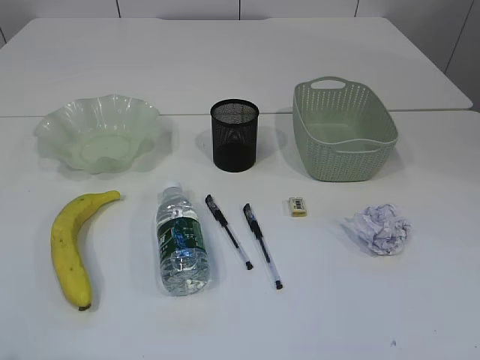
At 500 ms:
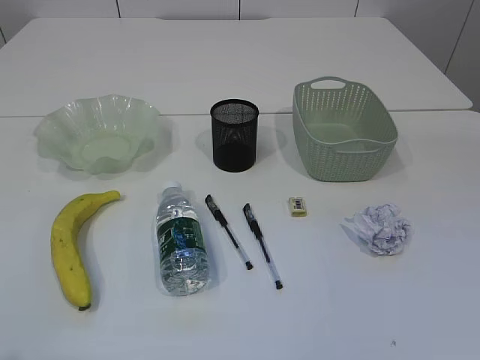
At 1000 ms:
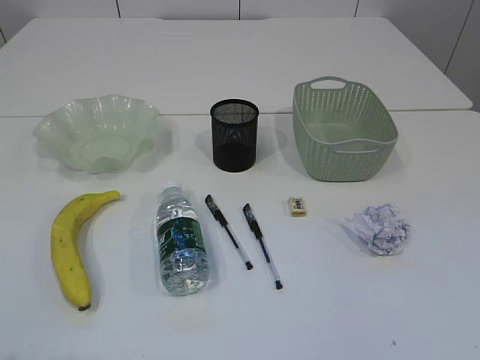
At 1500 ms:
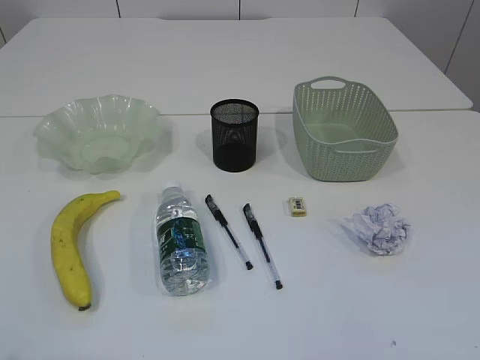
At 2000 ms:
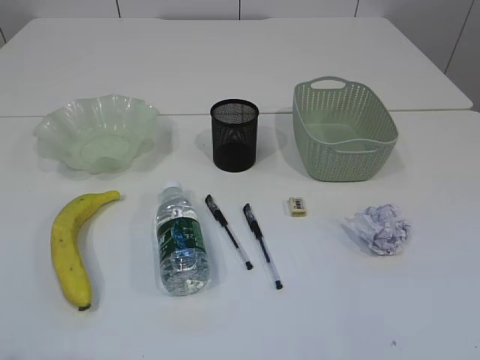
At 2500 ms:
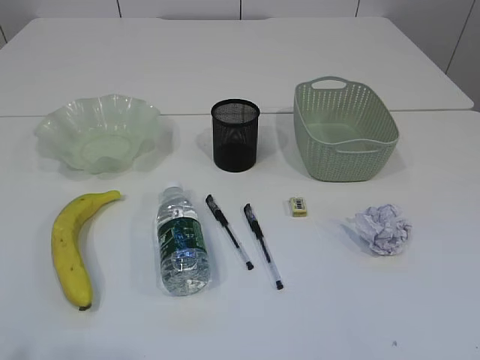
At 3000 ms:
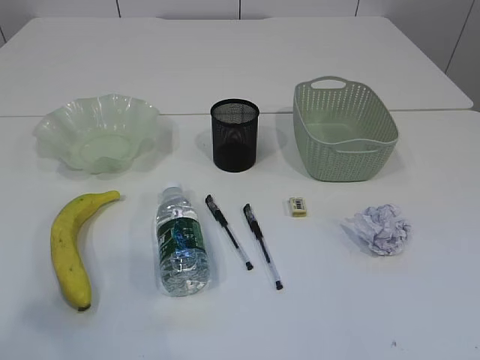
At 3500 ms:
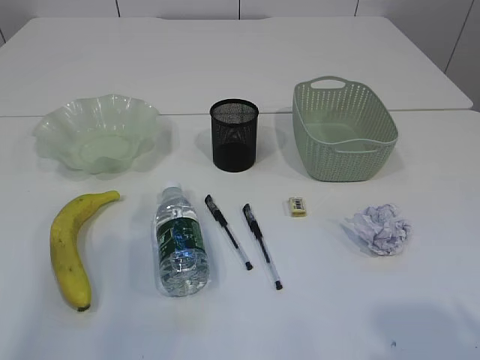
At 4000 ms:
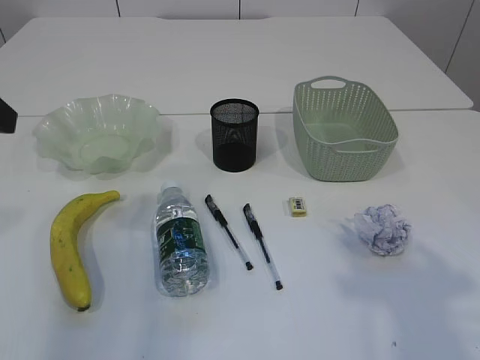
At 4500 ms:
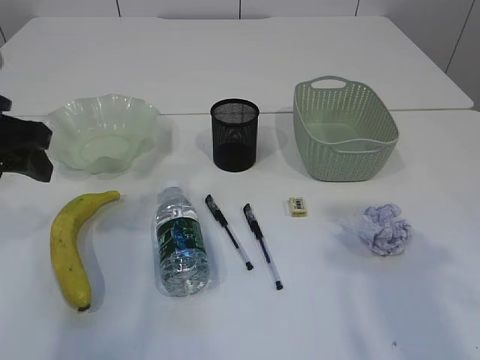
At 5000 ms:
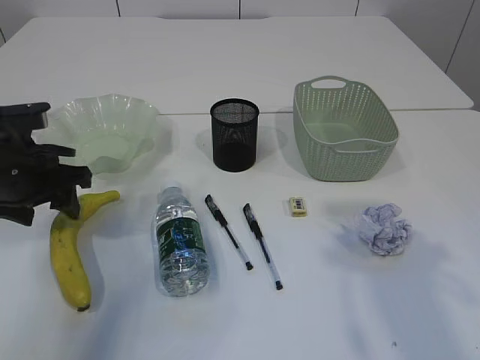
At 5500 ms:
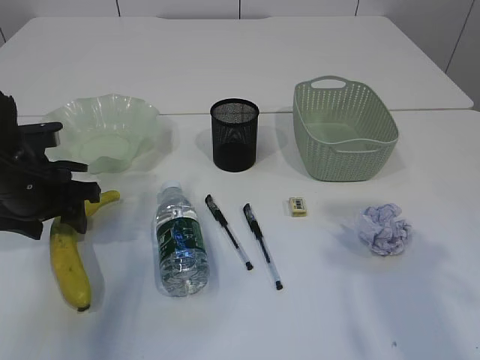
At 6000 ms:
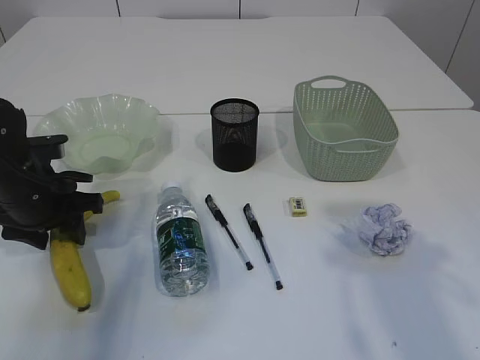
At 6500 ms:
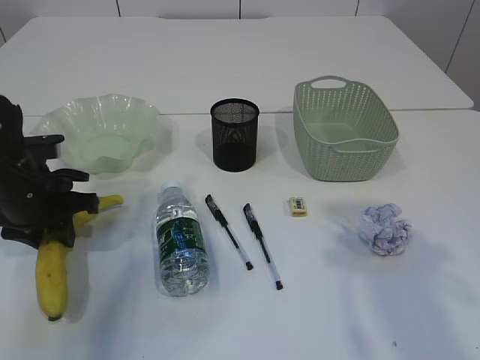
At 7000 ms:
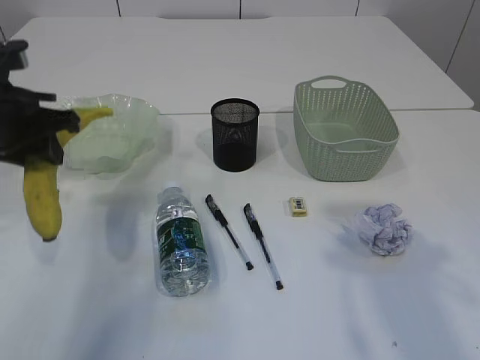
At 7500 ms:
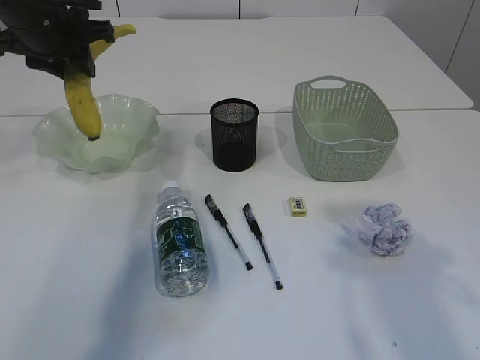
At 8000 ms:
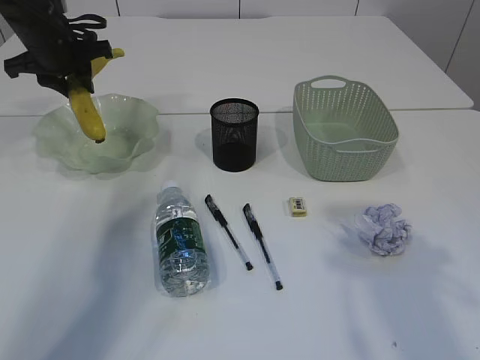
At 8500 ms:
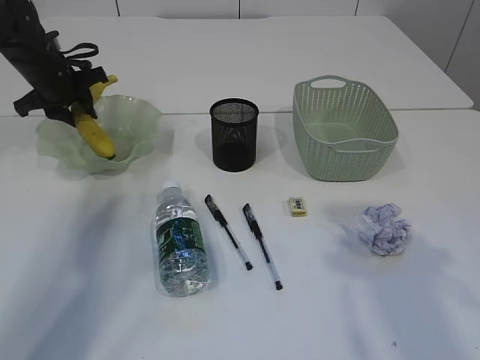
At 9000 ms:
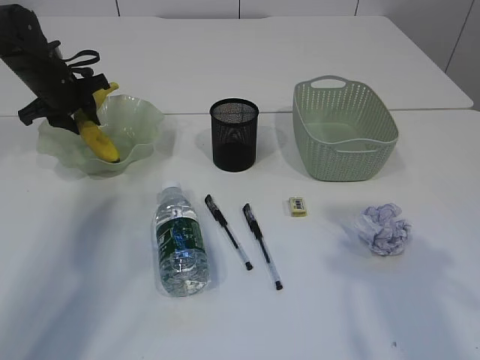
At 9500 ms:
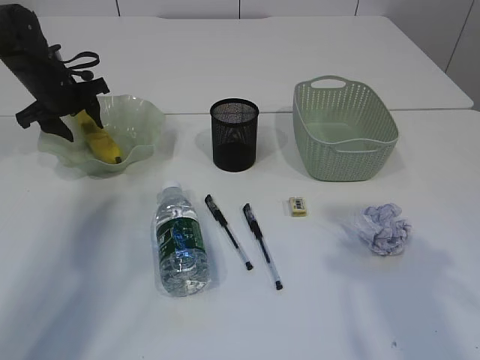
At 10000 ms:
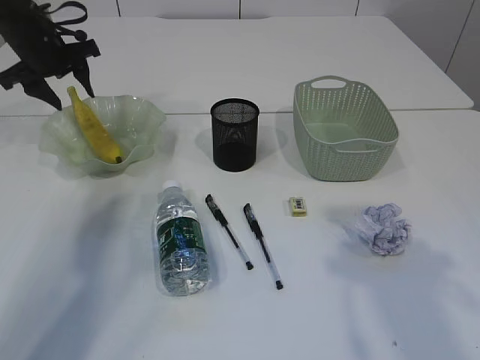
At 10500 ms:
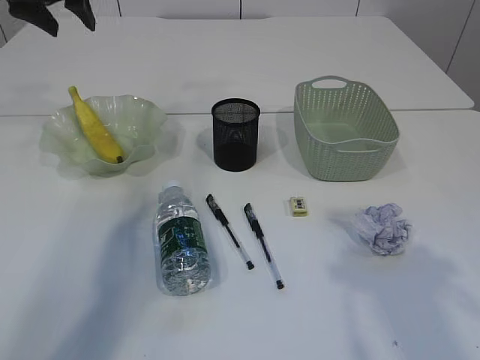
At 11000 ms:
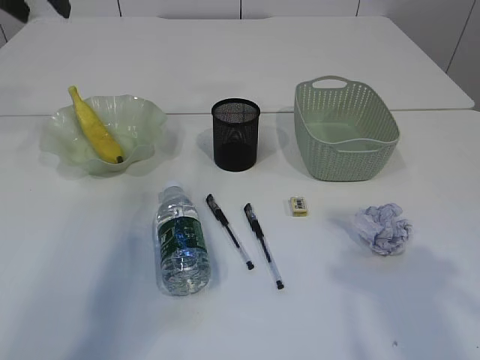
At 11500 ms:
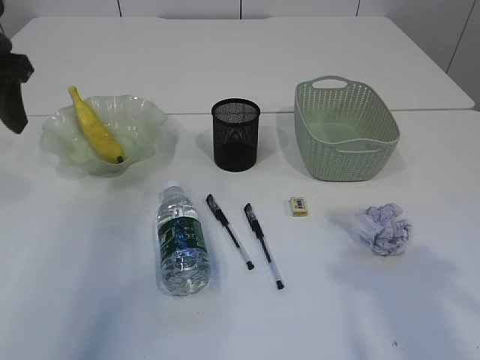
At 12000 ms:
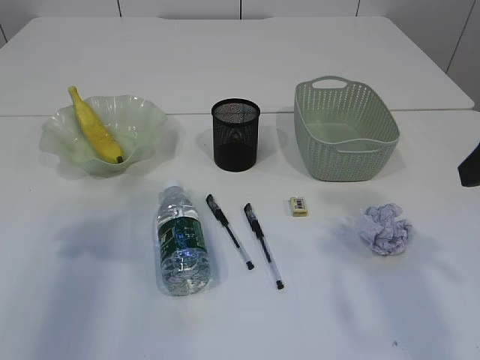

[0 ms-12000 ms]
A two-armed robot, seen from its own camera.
Step, 7000 ms to 10000 ms: Place the banana in the plate.
2000 ms to 4000 ms: The right gripper travels forward and upward by some 15 cm; the left gripper heads forward, covering about 25 cm.
4000 ms to 6000 ms: The left gripper goes about 20 cm downward and forward.
6000 ms to 8000 ms: The left gripper heads forward and upward, covering approximately 20 cm, and closes its fingers.
8000 ms to 10000 ms: The left gripper moves roughly 10 cm downward and comes back, and opens its fingers.
10000 ms to 12000 ms: The left gripper travels backward by some 25 cm.

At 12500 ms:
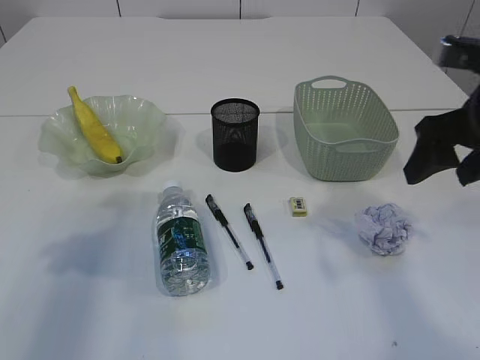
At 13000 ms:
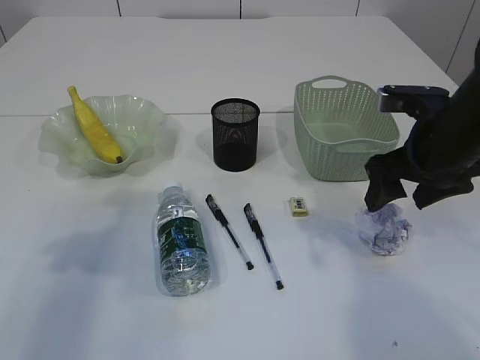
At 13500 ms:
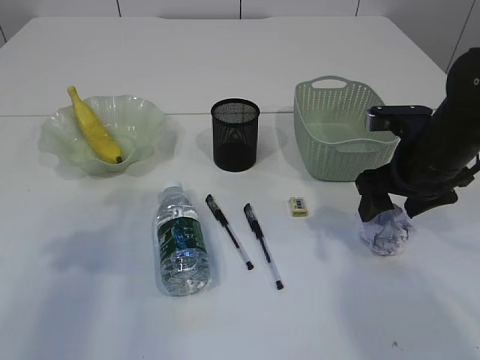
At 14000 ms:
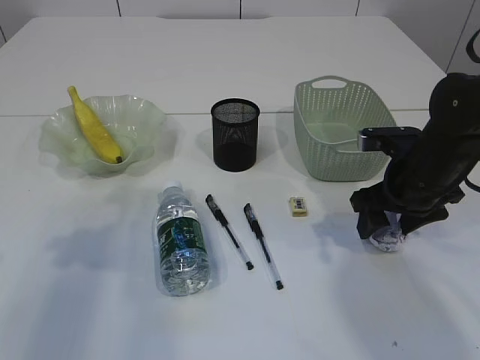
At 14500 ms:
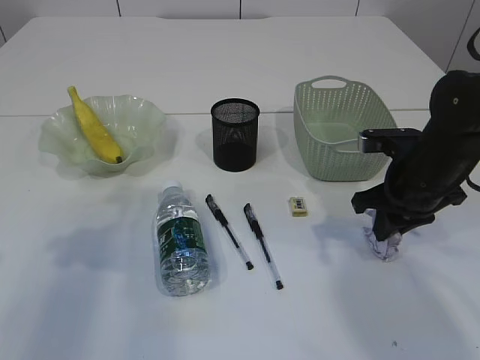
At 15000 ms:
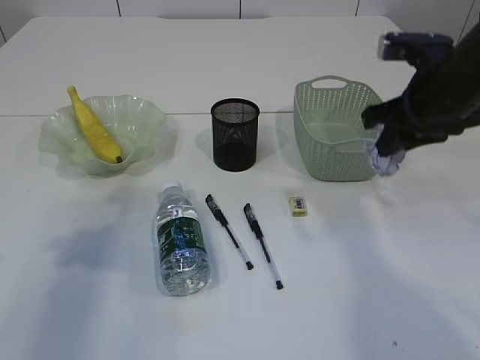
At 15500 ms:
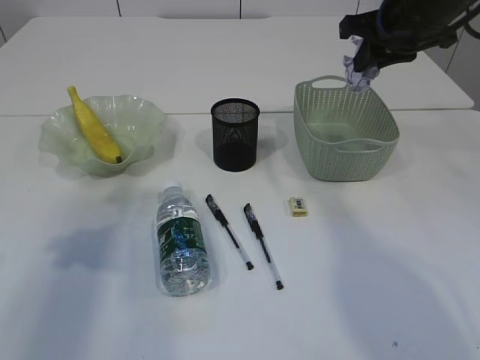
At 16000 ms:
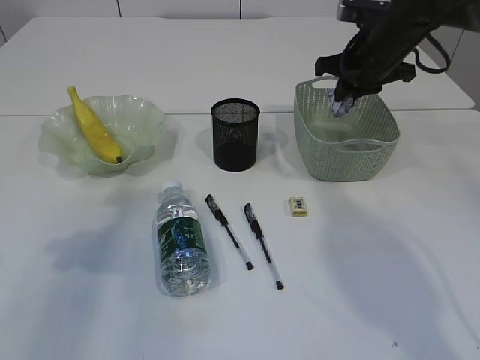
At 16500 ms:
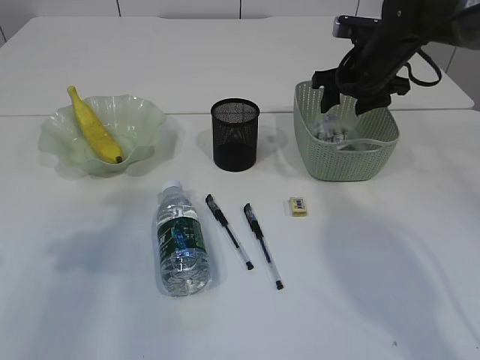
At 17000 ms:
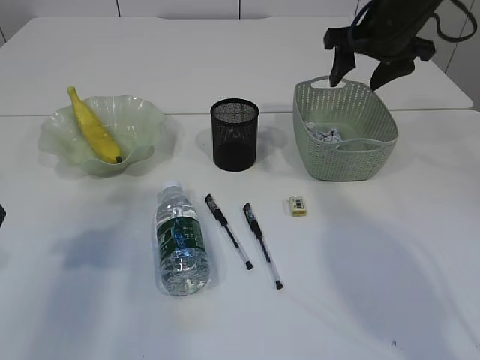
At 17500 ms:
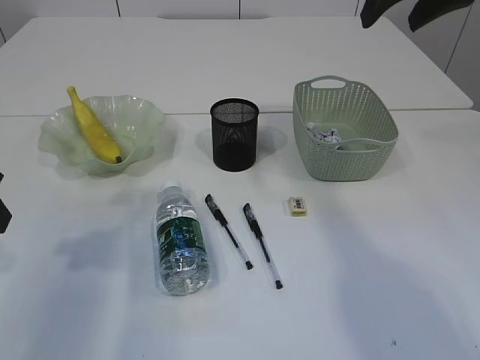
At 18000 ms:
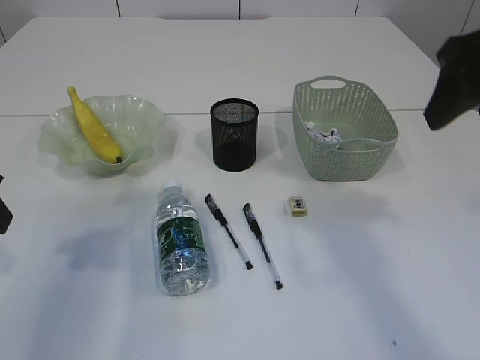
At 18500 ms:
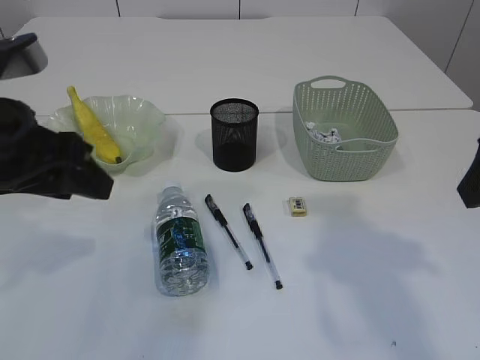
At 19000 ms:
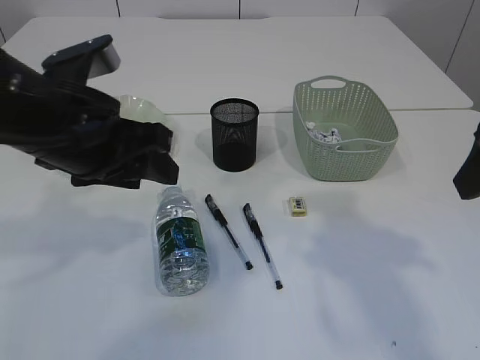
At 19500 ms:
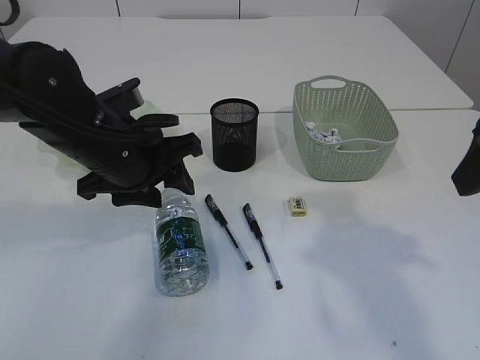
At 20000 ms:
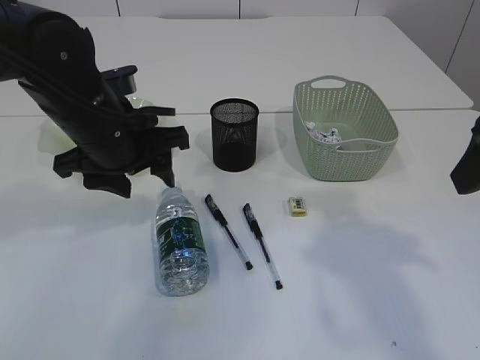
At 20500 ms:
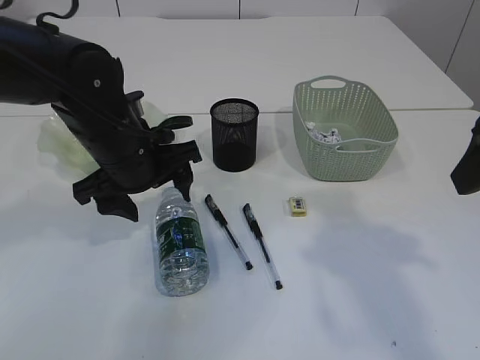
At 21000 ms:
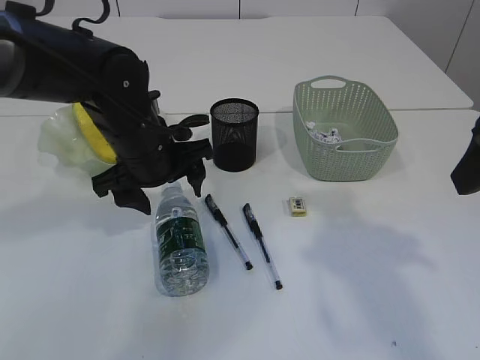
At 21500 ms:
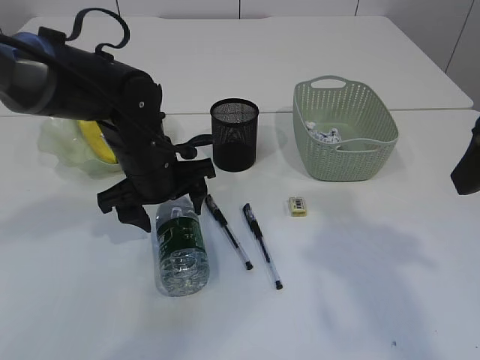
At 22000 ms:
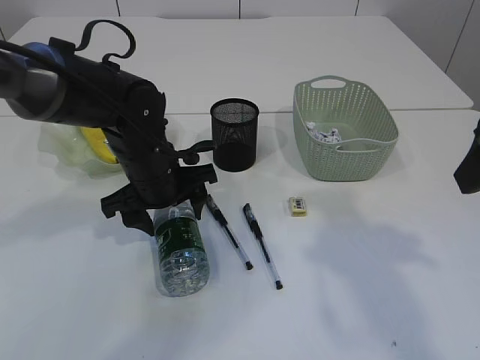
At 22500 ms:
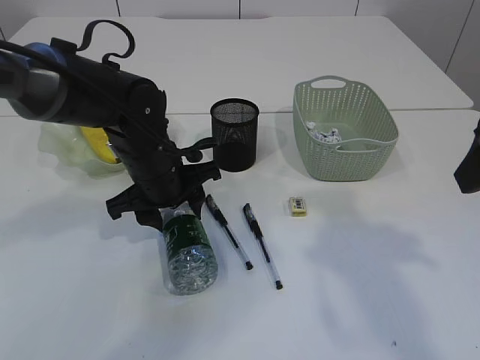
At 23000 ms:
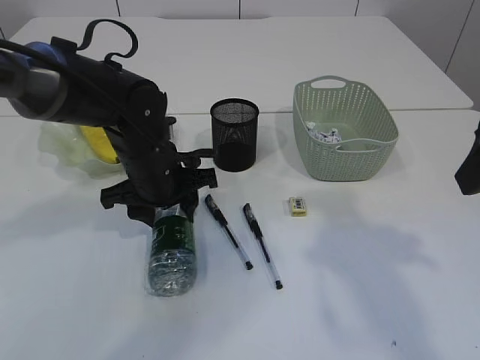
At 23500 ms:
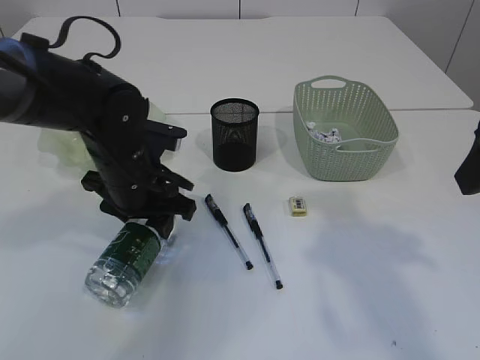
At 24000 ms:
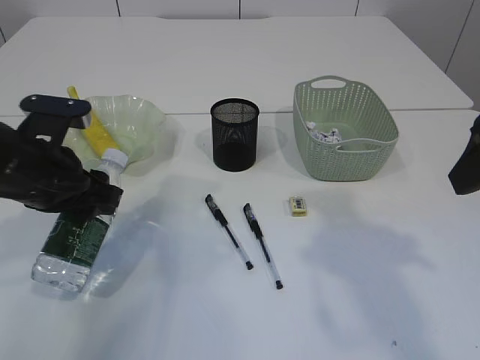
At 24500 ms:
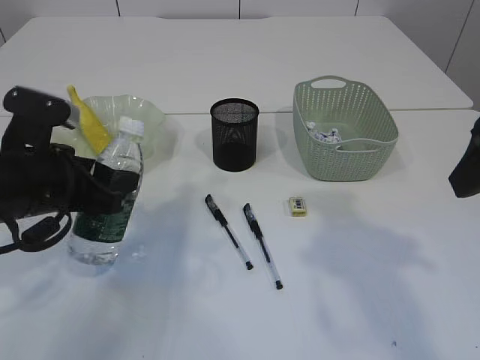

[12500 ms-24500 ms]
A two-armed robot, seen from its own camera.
Step, 12500 ms to 14500 ms: Pick up the waste paper.
Step, 15000 ms to 17000 ms: Place the waste paper in the basket.
Step, 17500 ms to 23500 ms: Pick up the bottle with the left arm.
12500 ms to 14500 ms: The right gripper is displaced downward and forward by roughly 15 cm, and closes its fingers.
14500 ms to 16500 ms: The right gripper is displaced forward and upward by approximately 15 cm, and opens up.
16500 ms to 18500 ms: The right gripper moves backward, roughly 30 cm; the left gripper moves to the right, roughly 10 cm.
18500 ms to 20500 ms: The left gripper moves forward, downward and to the right, some 15 cm, and opens up.
20500 ms to 22500 ms: The left gripper goes some 5 cm downward, and closes up.
22500 ms to 24500 ms: The left gripper shifts about 15 cm to the left and backward.

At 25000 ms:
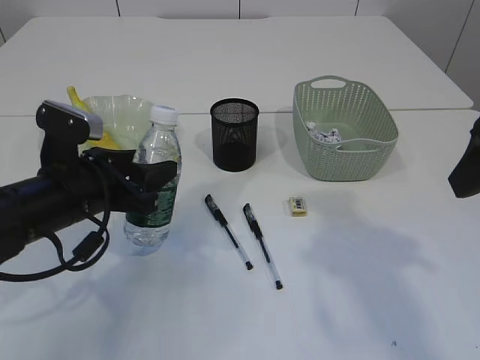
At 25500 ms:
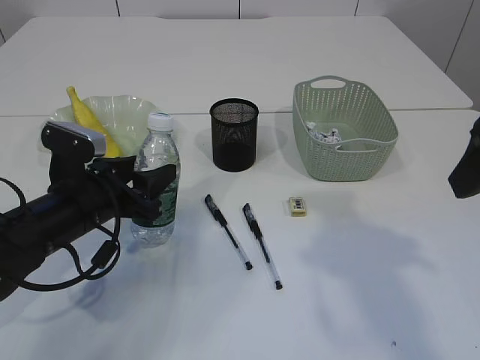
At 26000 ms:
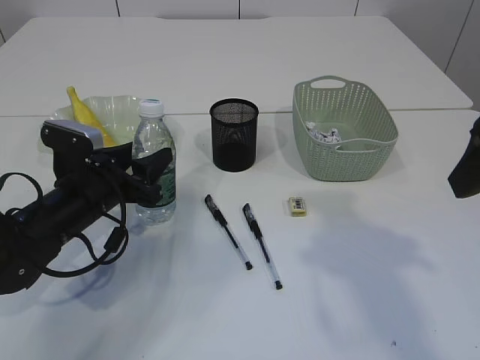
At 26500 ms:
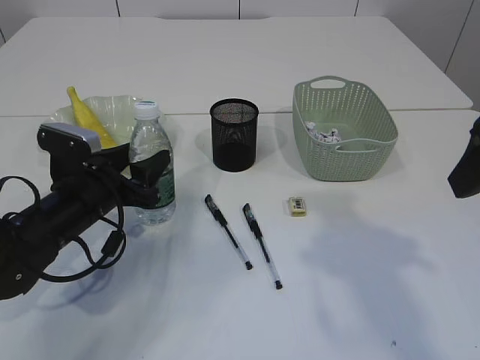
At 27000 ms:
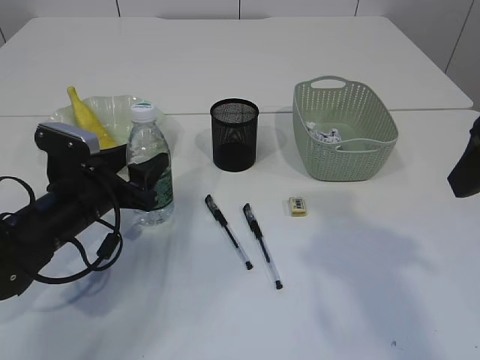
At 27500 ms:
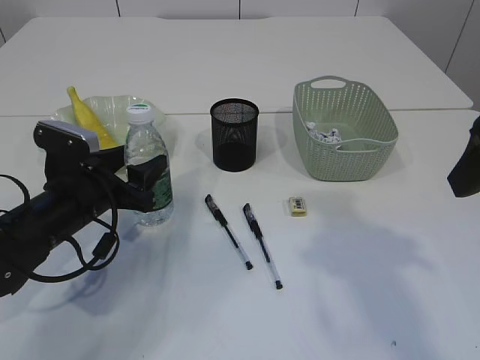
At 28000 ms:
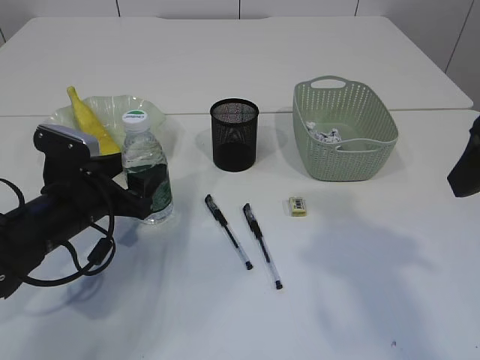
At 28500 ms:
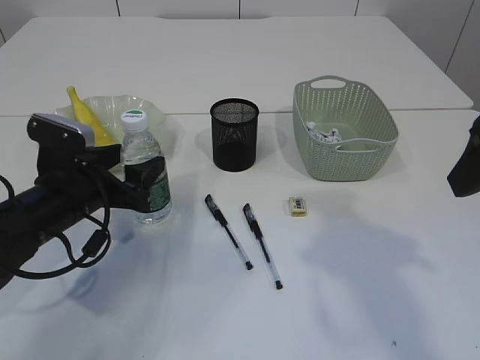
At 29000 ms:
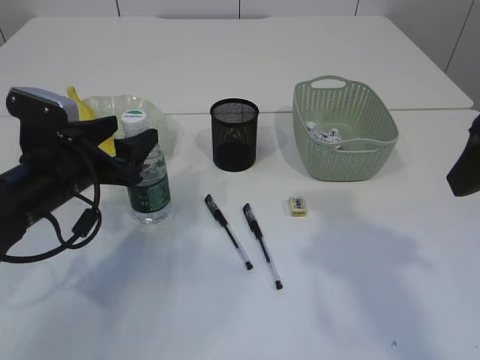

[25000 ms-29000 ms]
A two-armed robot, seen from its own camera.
25000 ms to 27000 ms: The left gripper goes some 5 cm downward.
27000 ms to 29000 ms: The left gripper moves upward, approximately 5 cm.
